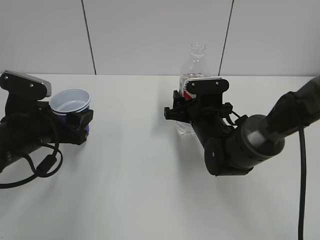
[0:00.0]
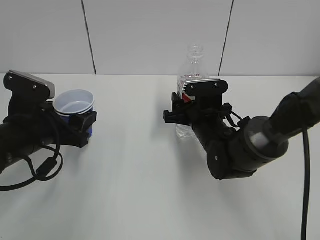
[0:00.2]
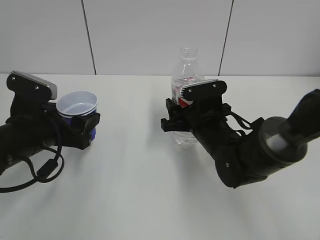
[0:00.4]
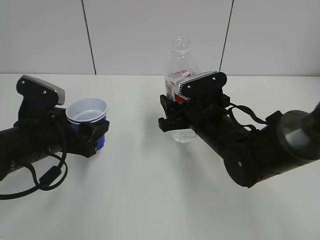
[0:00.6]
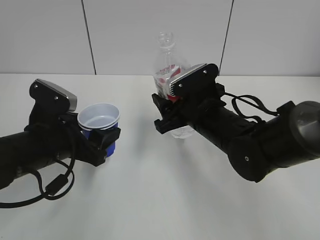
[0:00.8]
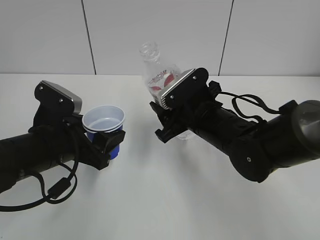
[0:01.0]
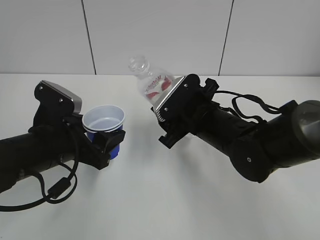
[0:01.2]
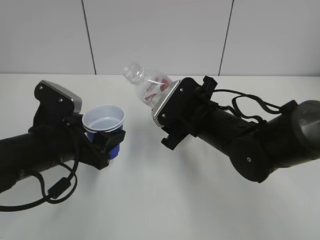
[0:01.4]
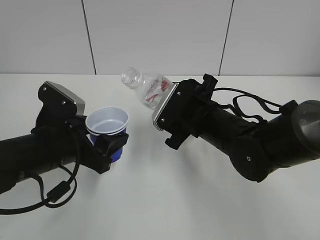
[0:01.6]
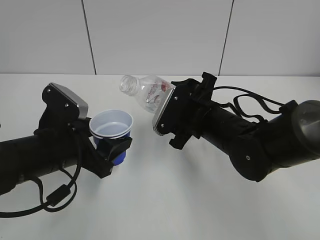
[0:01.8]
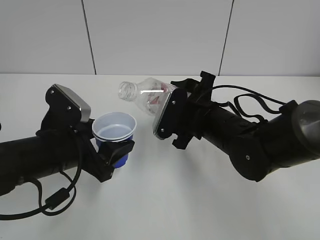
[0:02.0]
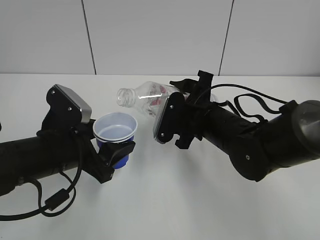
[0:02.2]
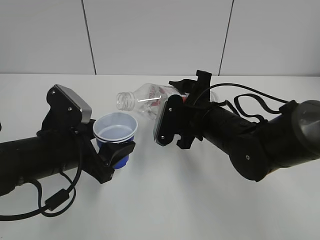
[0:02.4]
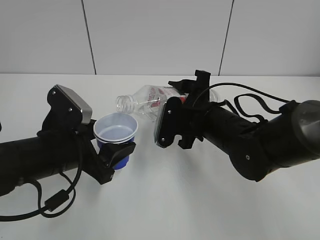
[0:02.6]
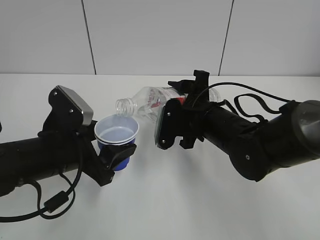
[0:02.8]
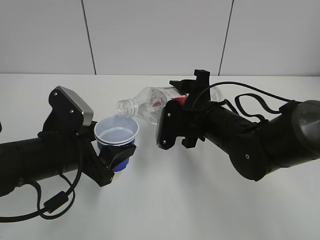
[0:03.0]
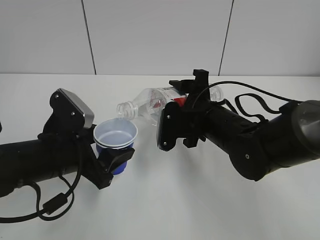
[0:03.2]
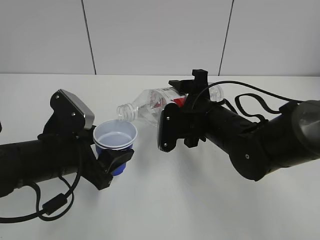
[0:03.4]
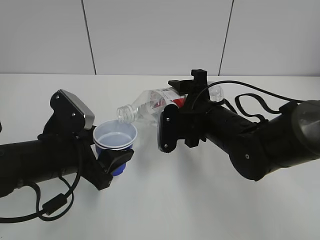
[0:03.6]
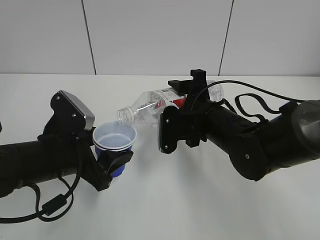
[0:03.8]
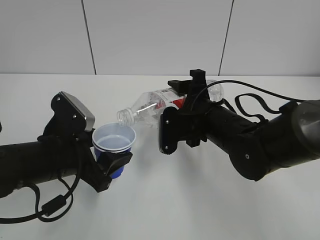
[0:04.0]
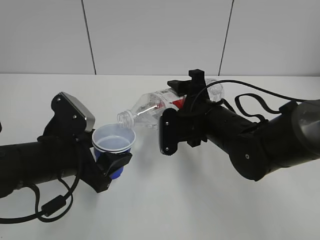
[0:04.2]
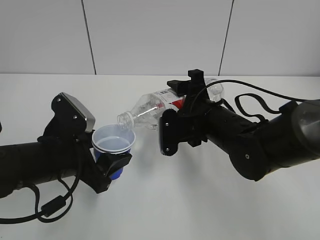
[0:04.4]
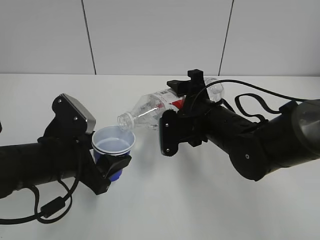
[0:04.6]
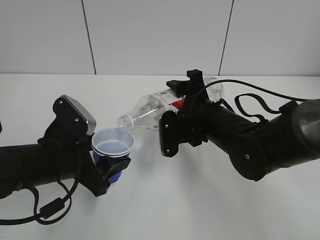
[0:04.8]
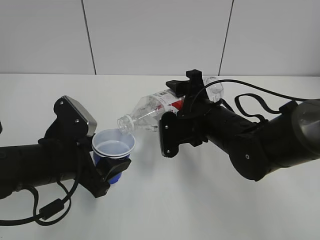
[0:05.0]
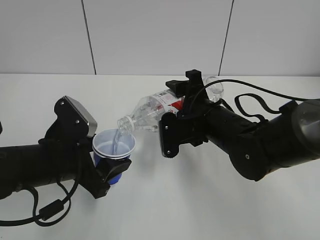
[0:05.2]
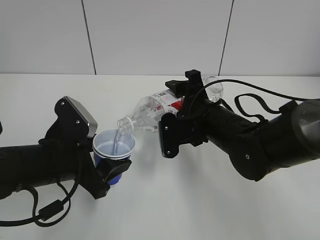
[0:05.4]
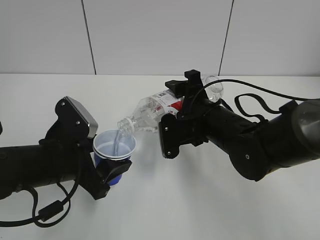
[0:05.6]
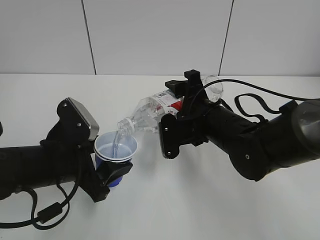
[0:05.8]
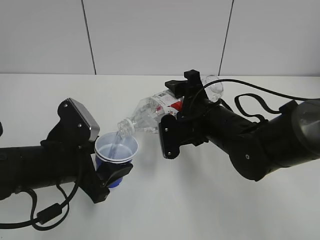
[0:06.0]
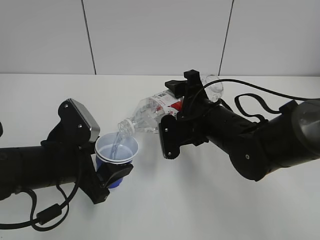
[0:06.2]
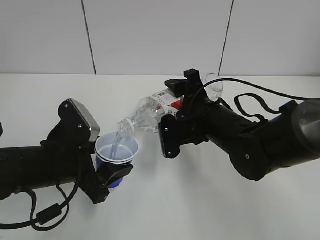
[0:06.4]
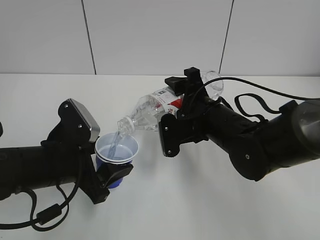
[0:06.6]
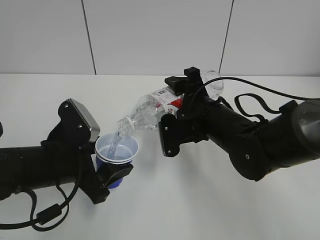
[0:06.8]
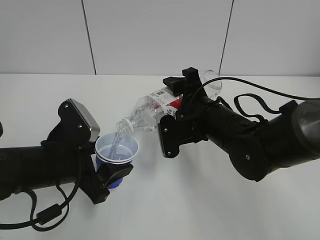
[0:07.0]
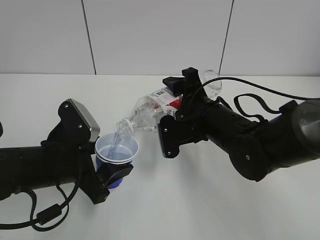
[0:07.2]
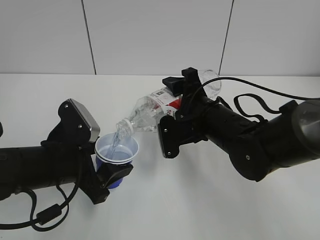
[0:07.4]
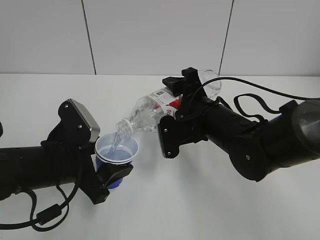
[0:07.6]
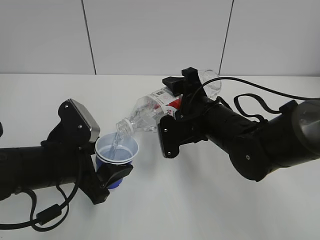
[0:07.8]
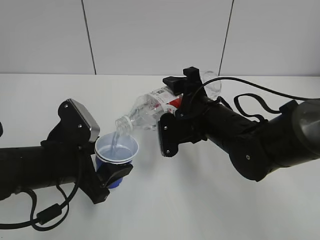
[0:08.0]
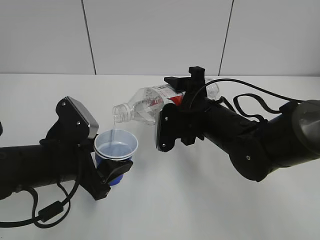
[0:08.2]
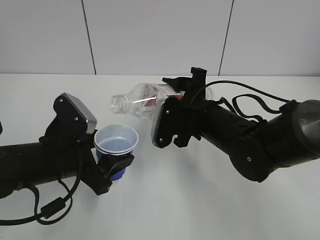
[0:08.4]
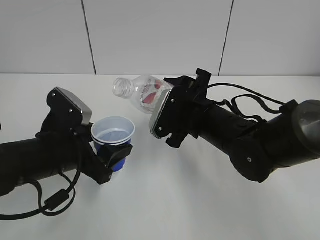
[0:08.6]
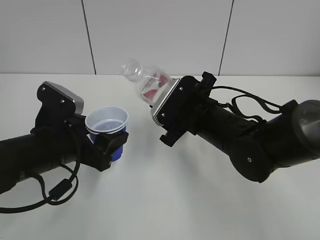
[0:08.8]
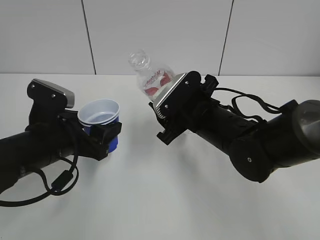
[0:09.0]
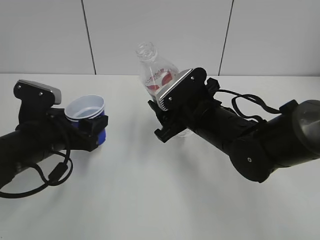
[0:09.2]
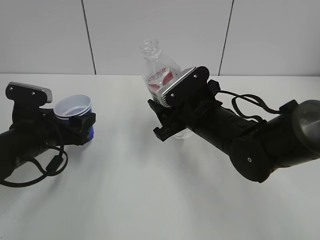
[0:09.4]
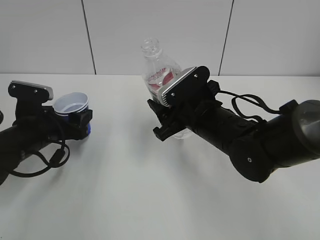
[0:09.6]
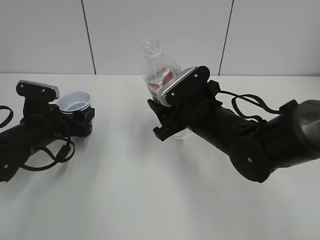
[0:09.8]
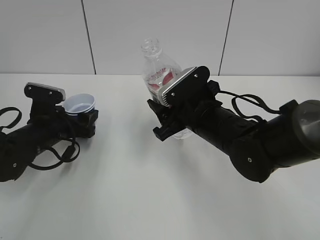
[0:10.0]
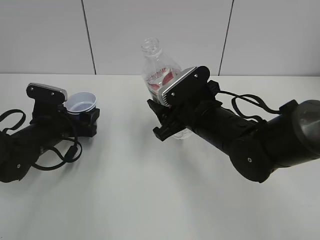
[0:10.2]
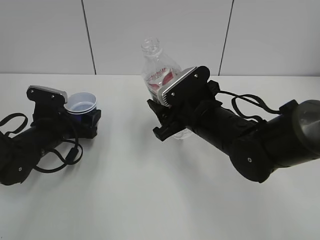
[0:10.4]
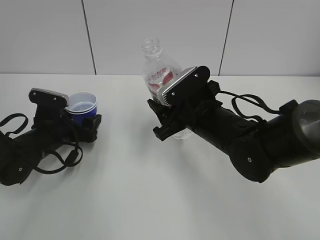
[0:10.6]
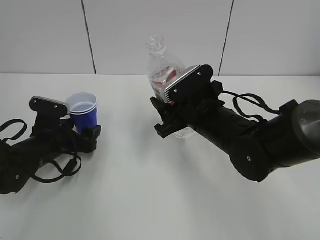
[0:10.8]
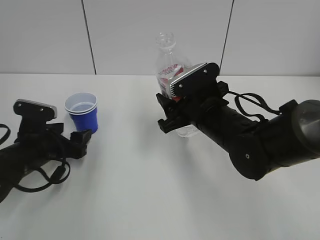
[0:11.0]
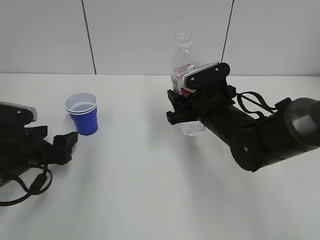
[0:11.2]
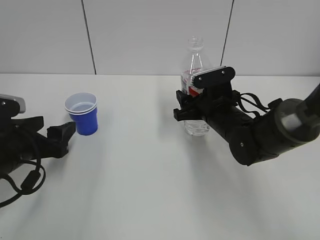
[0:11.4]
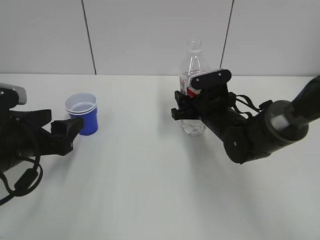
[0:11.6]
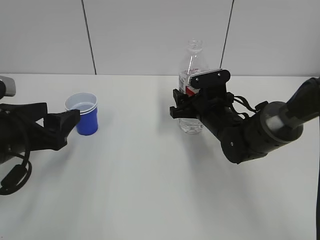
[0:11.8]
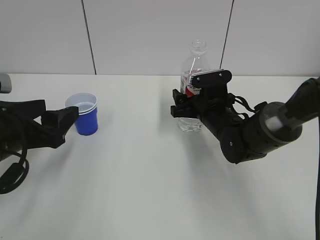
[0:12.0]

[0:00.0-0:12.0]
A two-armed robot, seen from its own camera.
Step, 0:00.2 to 0:08.6: Fill water with the left hand.
Step, 0:00.2 to 0:08.6: Pour water with the right hand.
Step, 0:09.8 to 0:10.8: Place the paper cup with the left hand.
0:00.0 to 0:01.6: The right gripper travels upward and backward by roughly 10 cm.
0:03.0 to 0:06.0: There are only small adjustments of the grippers.
0:06.0 to 0:07.6: Both grippers stay put.
0:09.0 to 0:10.4: The left gripper shifts roughly 10 cm forward and downward.
0:10.4 to 0:12.0: The left gripper moves backward and upward, roughly 15 cm, while the right gripper travels forward and downward by approximately 10 cm, and opens its fingers.

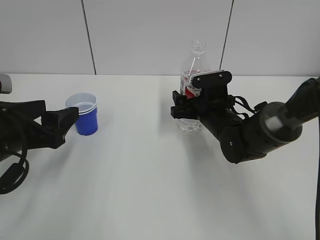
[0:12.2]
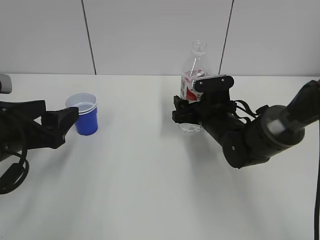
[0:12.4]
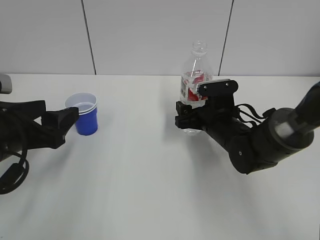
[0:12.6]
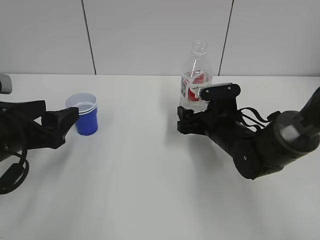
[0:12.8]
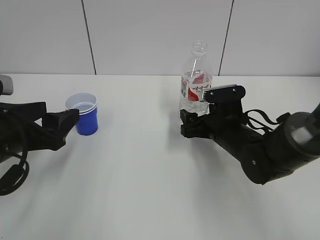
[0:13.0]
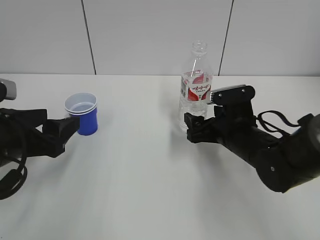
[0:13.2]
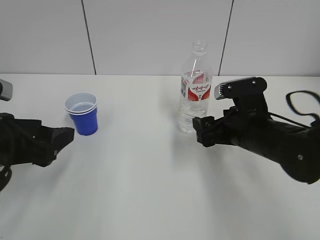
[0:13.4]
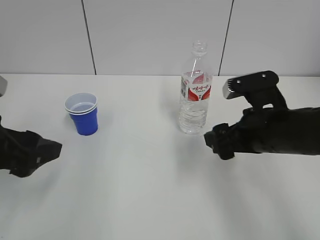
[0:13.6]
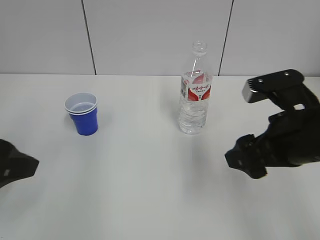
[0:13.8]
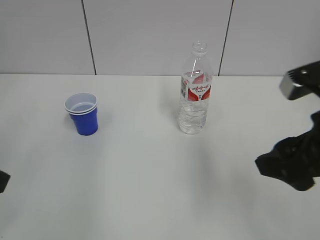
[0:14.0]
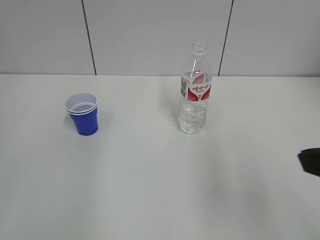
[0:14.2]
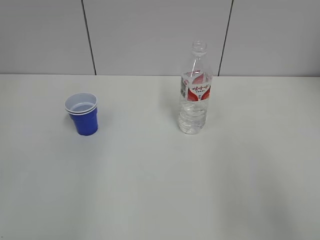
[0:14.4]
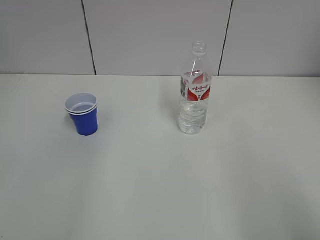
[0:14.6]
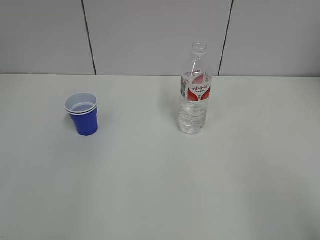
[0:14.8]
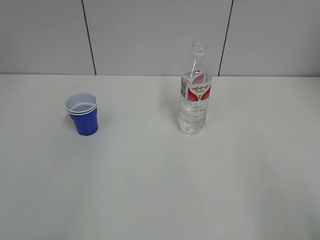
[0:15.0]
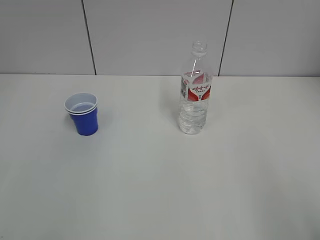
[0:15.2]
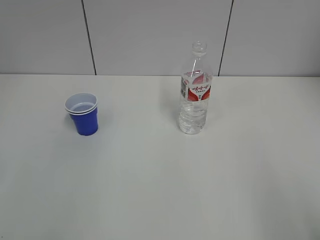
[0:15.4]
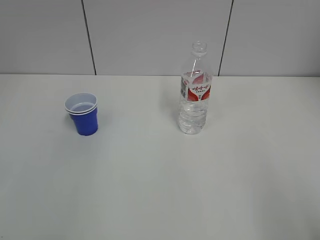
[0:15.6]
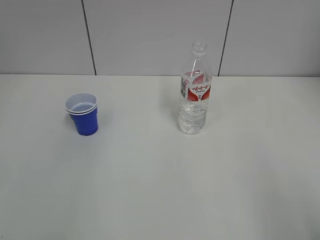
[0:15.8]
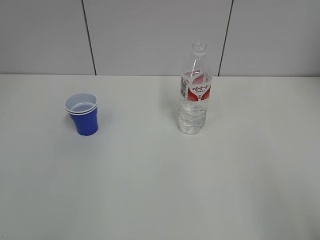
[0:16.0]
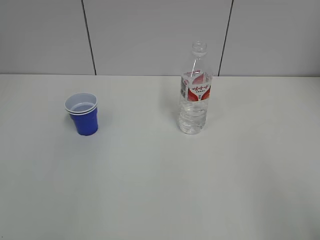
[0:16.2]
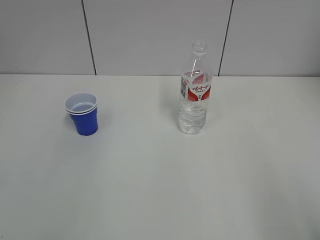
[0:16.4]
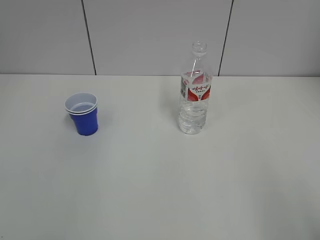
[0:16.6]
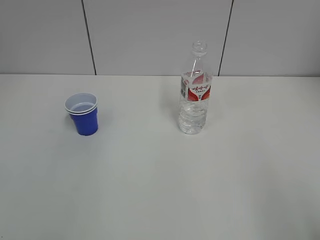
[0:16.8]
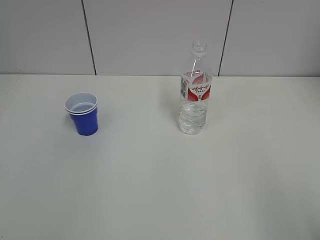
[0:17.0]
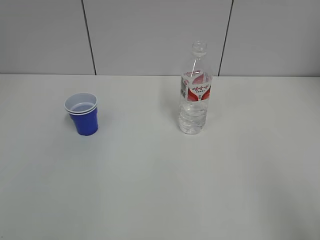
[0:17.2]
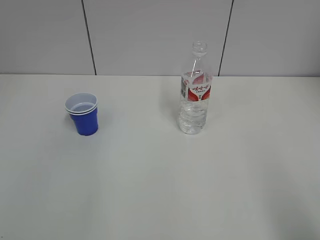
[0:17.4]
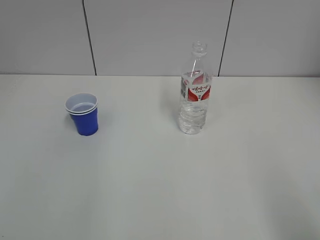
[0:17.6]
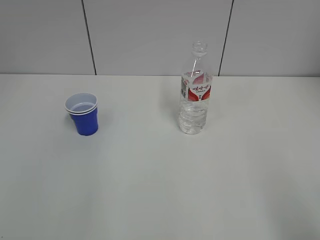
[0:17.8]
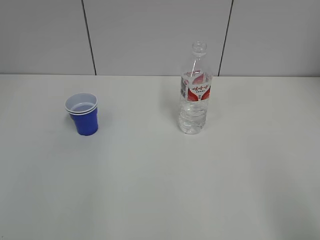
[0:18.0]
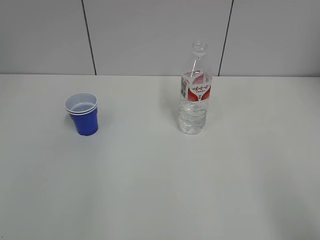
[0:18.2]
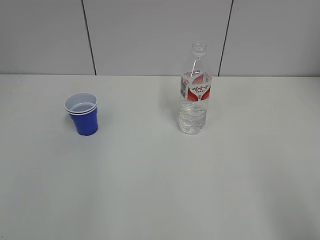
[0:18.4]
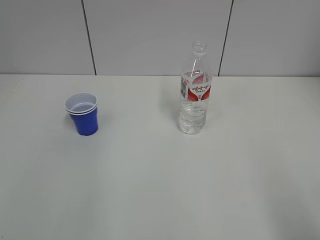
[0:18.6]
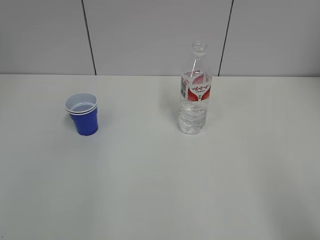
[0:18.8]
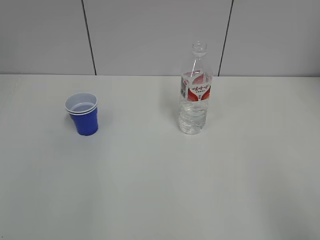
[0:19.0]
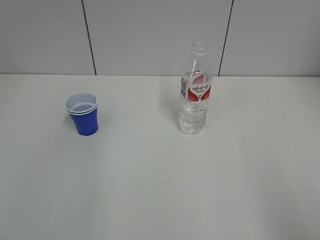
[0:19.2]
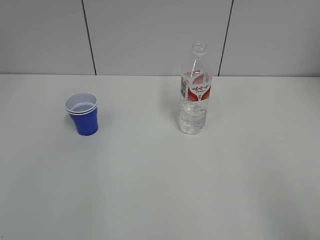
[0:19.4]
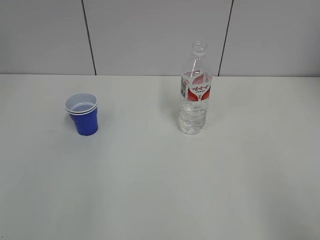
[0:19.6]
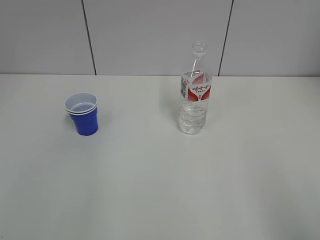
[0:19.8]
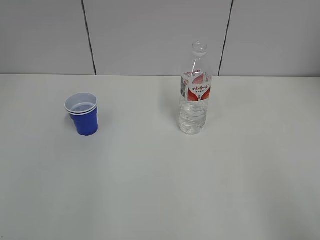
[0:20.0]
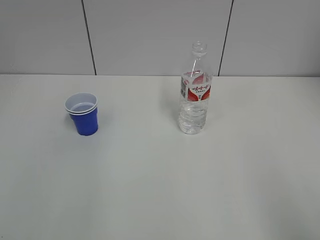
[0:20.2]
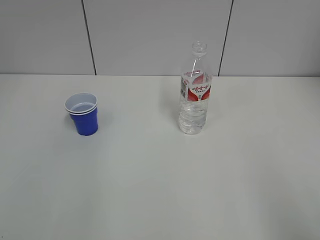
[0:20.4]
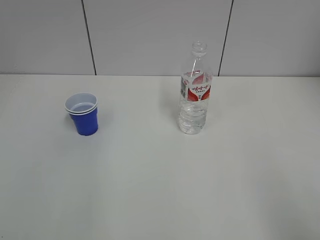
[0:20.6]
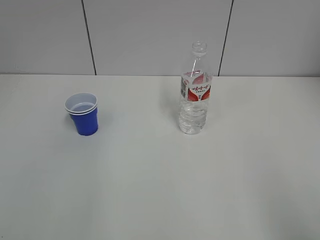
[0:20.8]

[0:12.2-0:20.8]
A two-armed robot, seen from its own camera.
0:12.2 to 0:13.6: The right gripper heads backward and upward, covering some 15 cm.
0:13.6 to 0:15.0: The right gripper shifts some 30 cm backward and to the right; the left gripper travels backward, to the left and upward by about 20 cm.
0:15.0 to 0:16.6: Neither gripper changes place.
0:19.4 to 0:20.8: Neither gripper changes place.

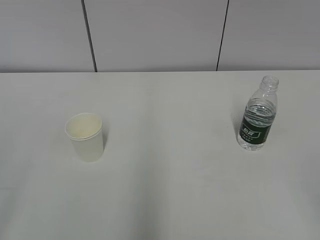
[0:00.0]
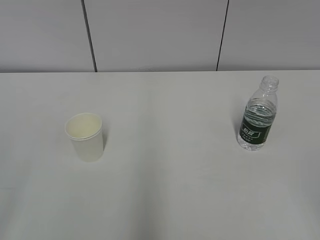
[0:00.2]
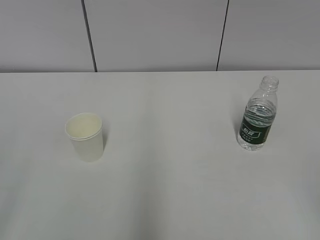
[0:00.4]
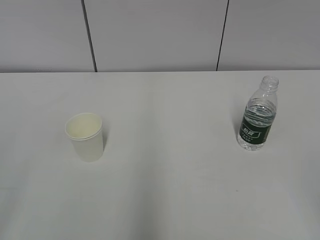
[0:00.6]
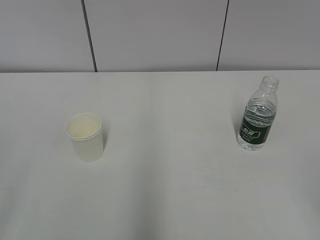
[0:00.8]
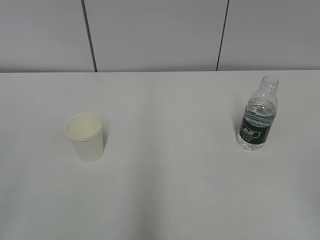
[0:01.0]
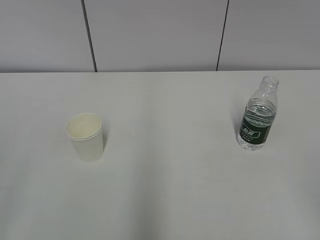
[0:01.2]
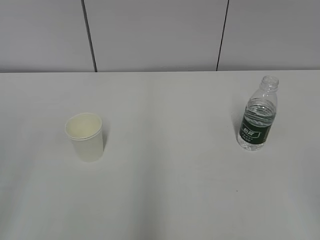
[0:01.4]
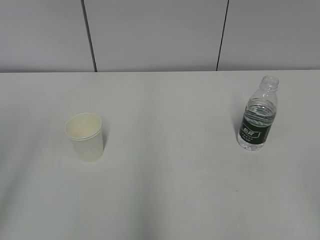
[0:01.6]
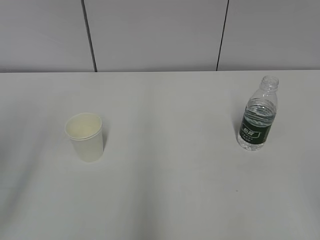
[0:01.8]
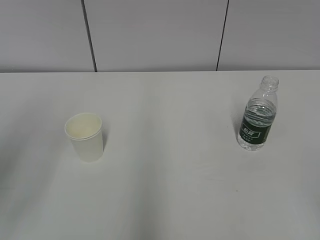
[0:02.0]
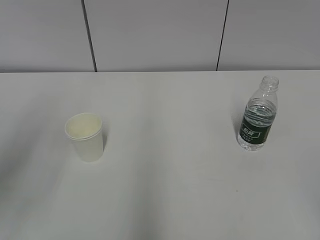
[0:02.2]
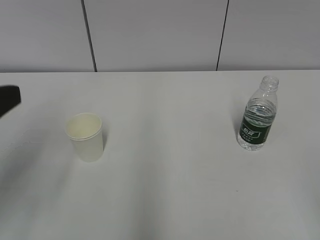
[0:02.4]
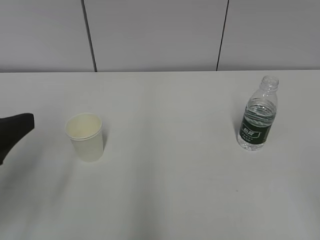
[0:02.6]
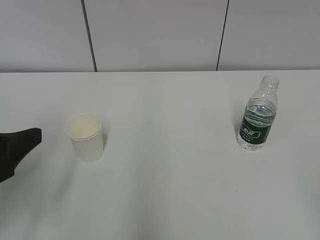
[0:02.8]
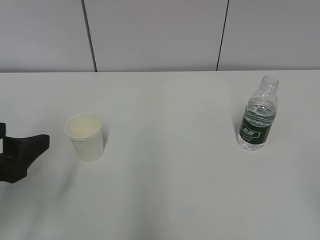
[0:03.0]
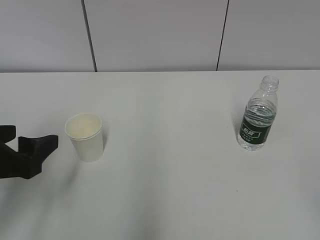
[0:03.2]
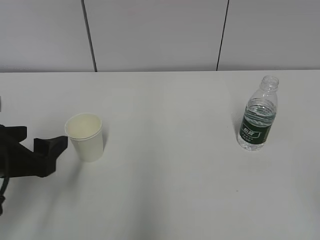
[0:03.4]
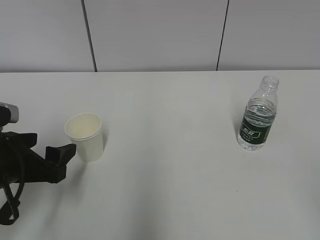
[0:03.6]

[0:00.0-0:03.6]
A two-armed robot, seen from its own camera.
0:01.8 to 0:03.6: The left gripper goes approximately 20 cm downward and forward.
